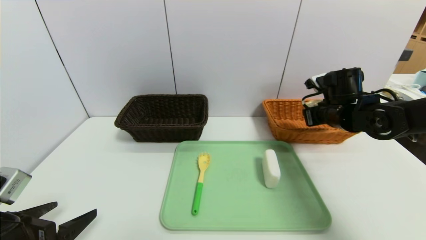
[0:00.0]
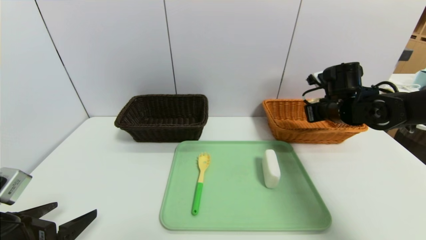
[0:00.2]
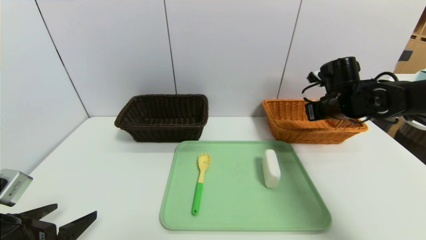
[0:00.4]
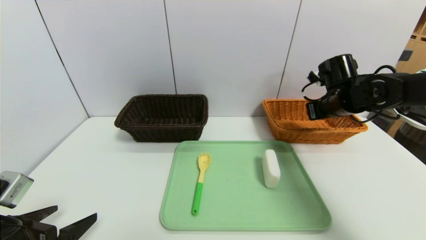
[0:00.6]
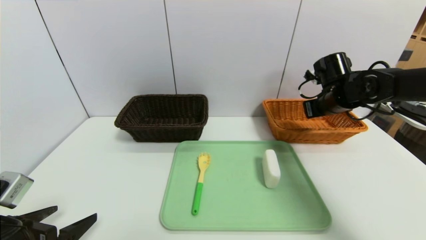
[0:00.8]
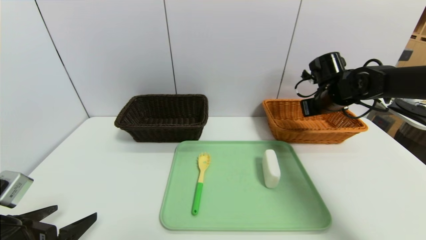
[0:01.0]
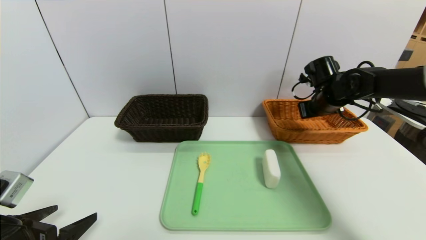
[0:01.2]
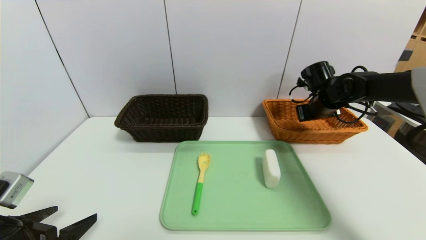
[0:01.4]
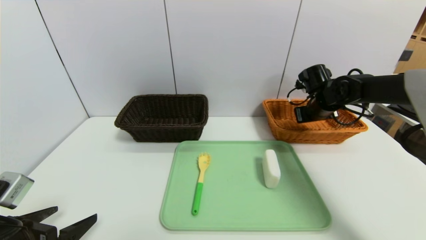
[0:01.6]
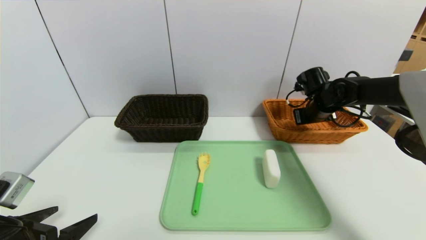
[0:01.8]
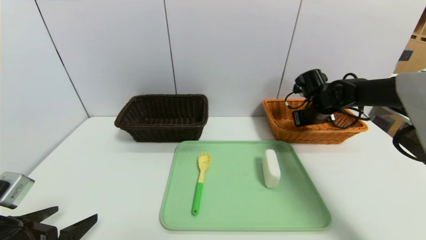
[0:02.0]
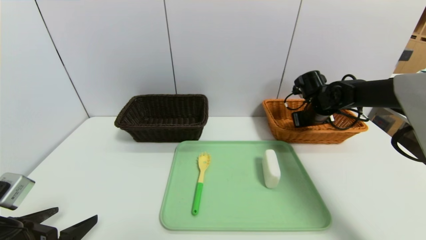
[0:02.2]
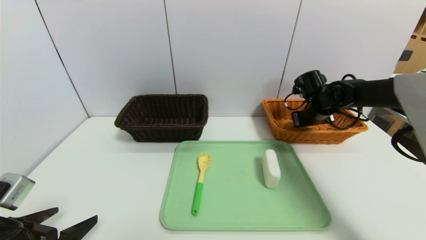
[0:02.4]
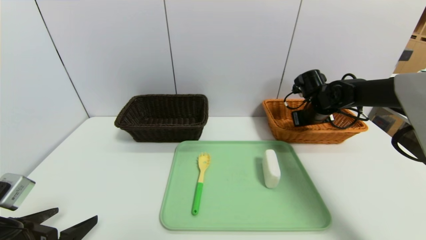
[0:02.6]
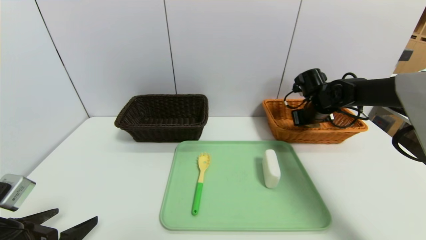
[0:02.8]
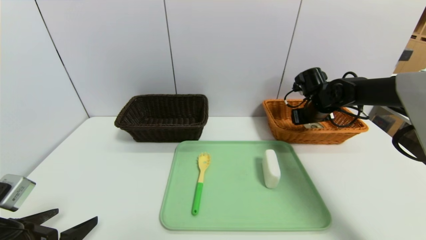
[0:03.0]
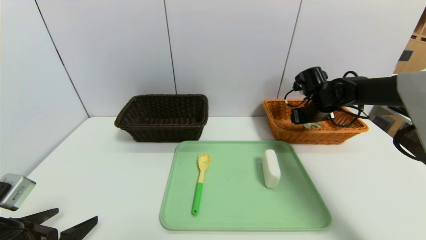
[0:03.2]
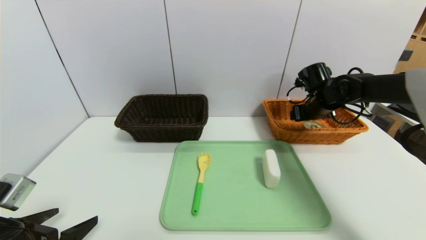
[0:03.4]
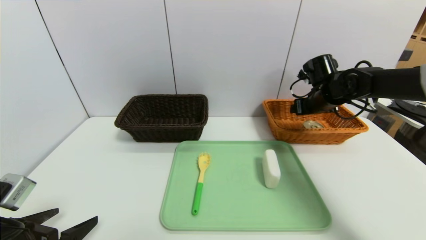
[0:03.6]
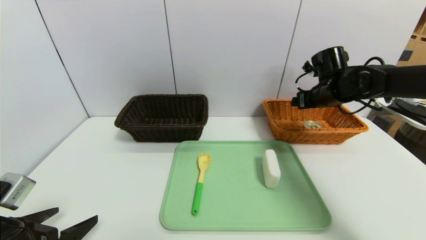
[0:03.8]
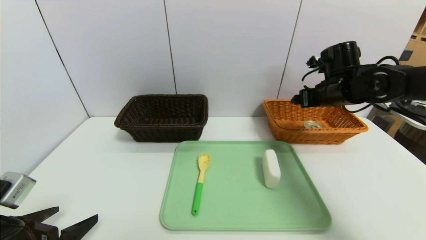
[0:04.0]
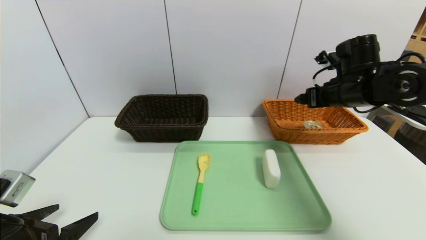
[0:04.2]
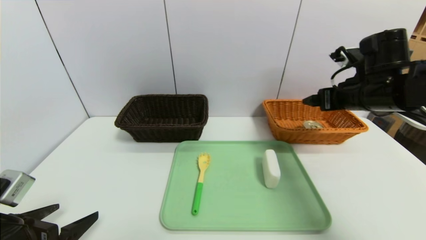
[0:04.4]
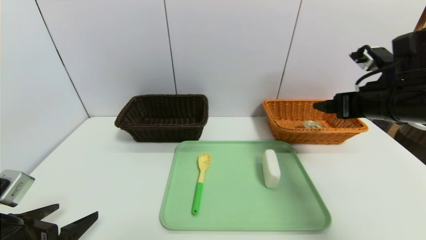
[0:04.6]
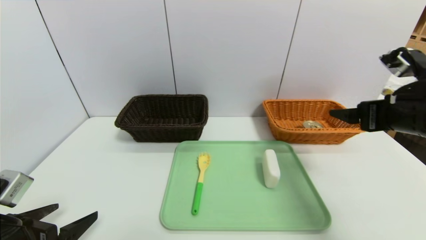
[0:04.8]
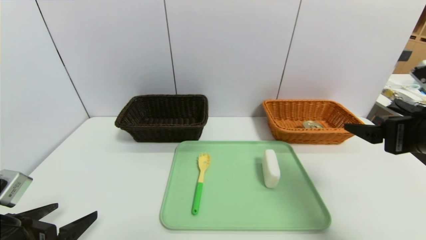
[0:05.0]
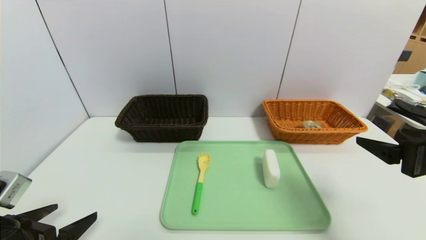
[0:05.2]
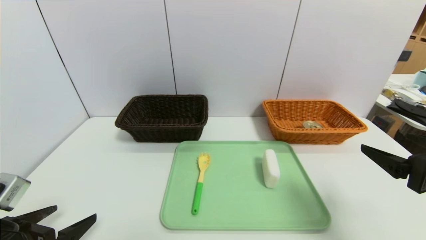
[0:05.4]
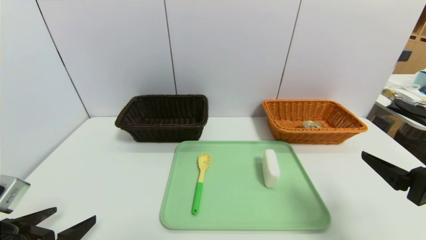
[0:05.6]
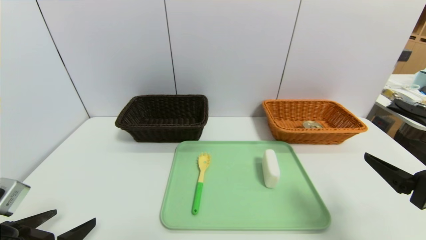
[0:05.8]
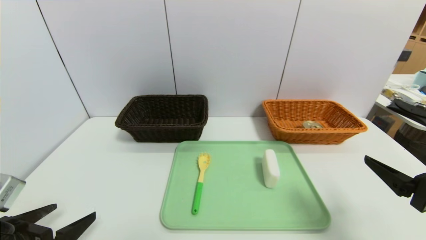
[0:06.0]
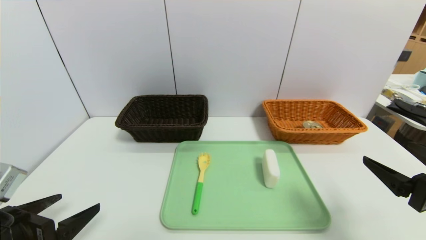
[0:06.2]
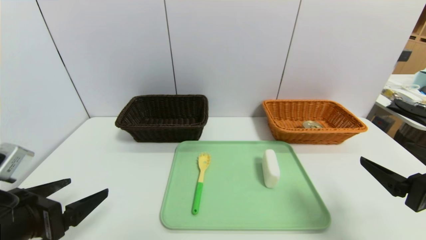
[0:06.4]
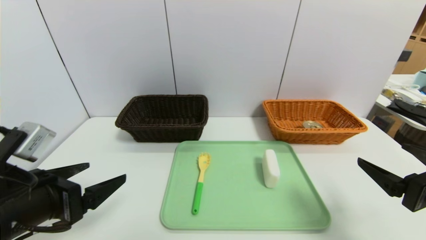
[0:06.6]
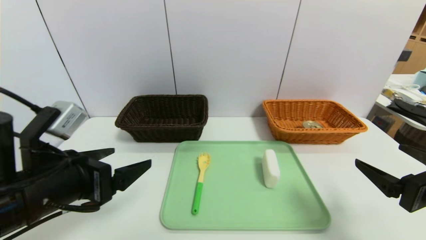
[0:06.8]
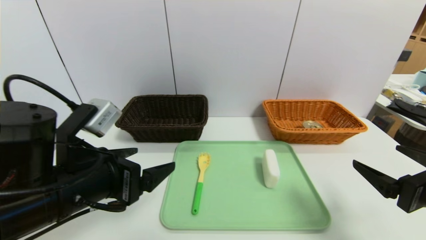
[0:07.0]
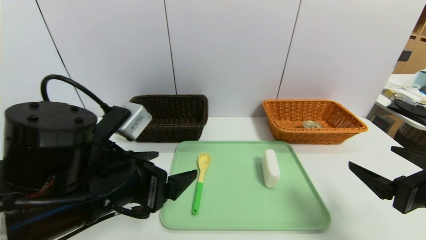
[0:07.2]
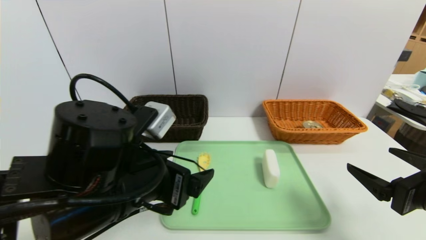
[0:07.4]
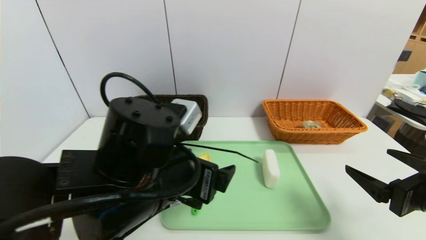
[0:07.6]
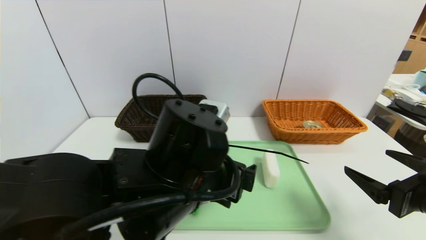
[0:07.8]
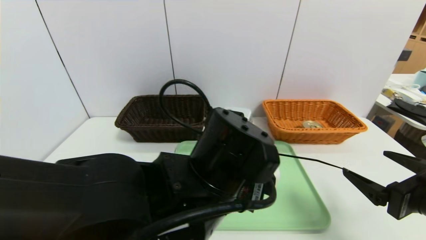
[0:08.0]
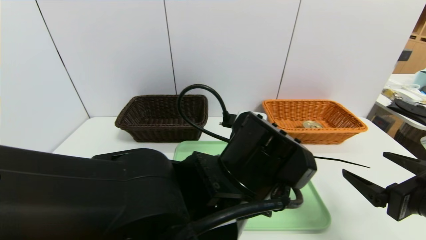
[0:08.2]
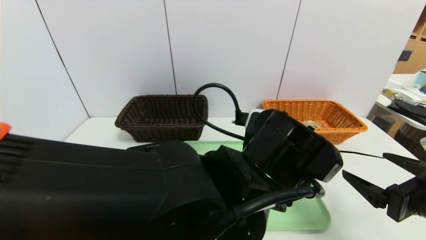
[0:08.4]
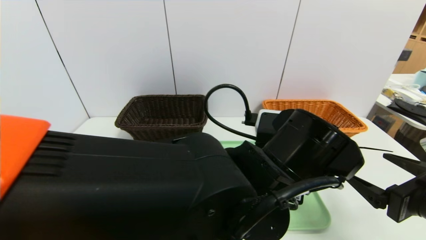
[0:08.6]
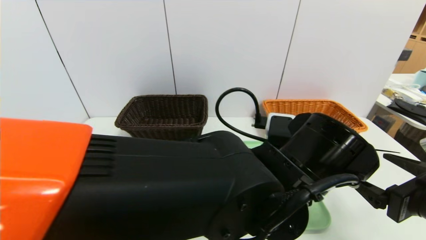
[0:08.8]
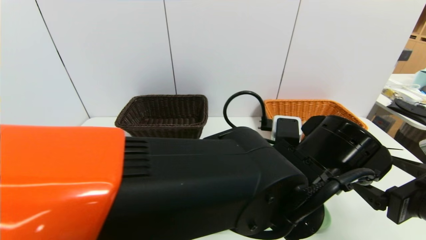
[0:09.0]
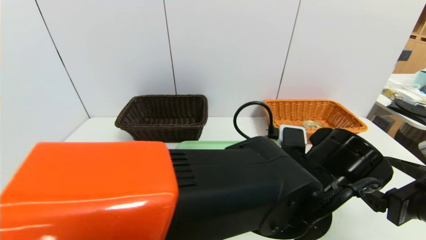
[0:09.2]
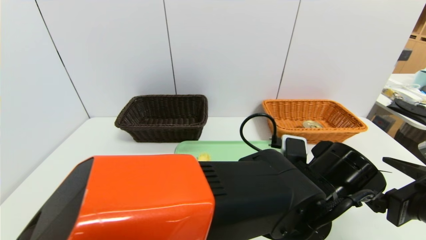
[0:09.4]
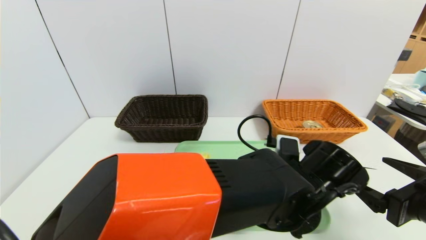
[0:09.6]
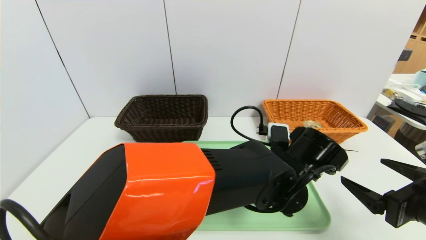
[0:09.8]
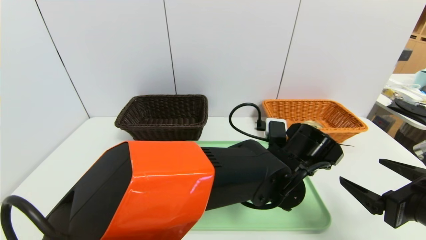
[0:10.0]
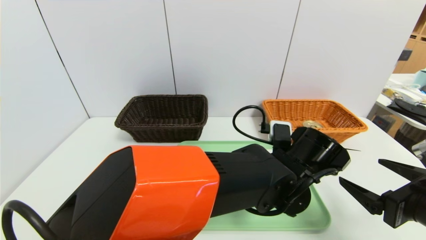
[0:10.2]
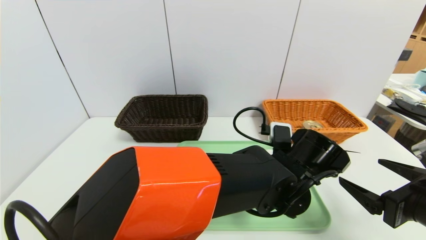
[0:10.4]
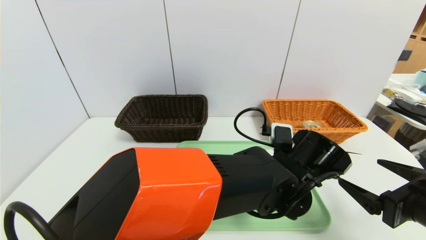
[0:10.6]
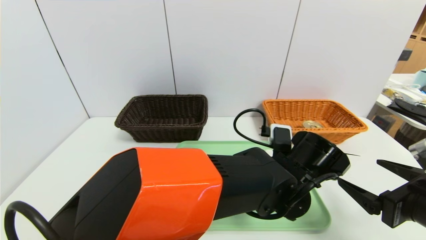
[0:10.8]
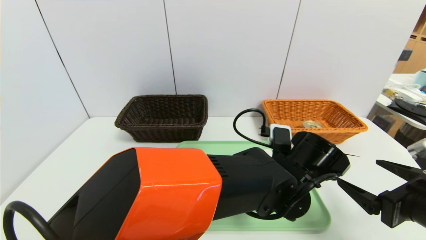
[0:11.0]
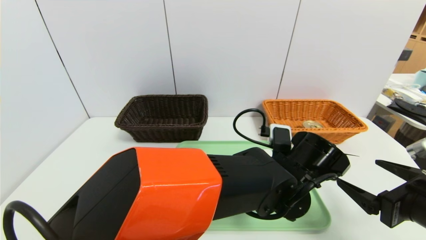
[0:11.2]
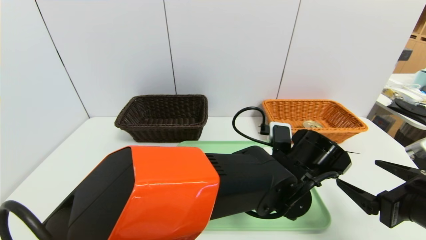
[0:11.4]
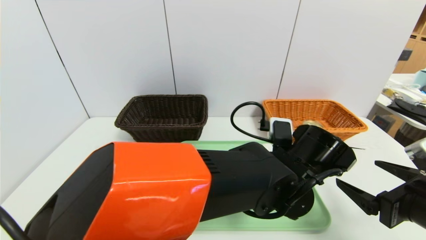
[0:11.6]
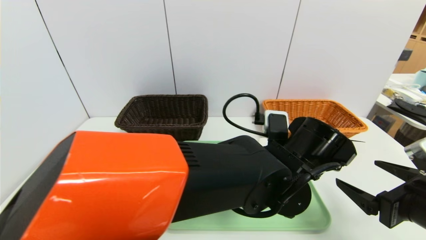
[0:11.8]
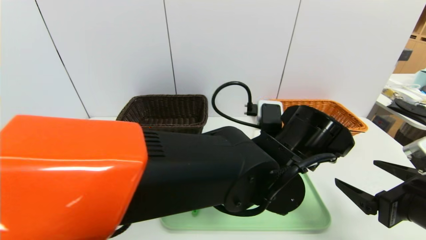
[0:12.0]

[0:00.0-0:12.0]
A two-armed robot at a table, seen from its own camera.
Task of the whole recording: place the food in the right basket with the right gripper, and place the non food items in the left basket with the left gripper.
Step, 0:00.0 to 0:03.2: Grasp the can and put it in the right basket.
0:00.0 to 0:01.6: The right gripper goes some 5 cm forward.
0:01.6 to 0:03.0: The right gripper opens its fingers.
0:03.0 to 0:04.4: The right gripper heads backward and upward, covering roughly 15 cm, and opens its fingers.
0:04.4 to 0:06.0: The right gripper goes approximately 20 cm backward.
0:06.0 to 0:07.6: The left gripper travels to the right by some 20 cm.
0:07.6 to 0:09.0: The left gripper heads to the right, covering about 15 cm.
0:09.0 to 0:10.4: The left gripper is displaced downward and forward by about 10 cm.
0:10.4 to 0:12.0: The left gripper heads upward, covering approximately 5 cm, and closes up.

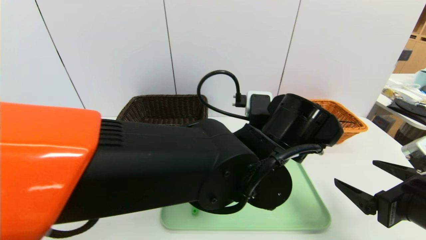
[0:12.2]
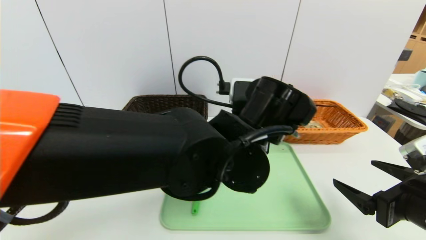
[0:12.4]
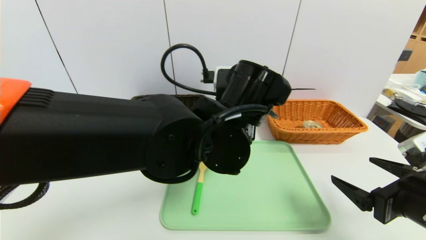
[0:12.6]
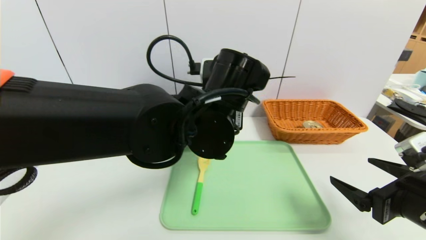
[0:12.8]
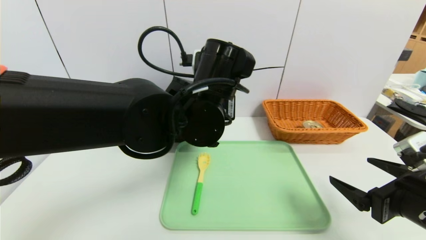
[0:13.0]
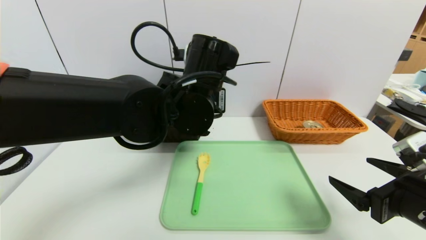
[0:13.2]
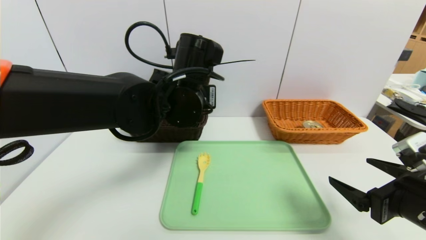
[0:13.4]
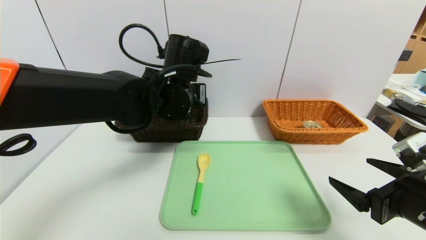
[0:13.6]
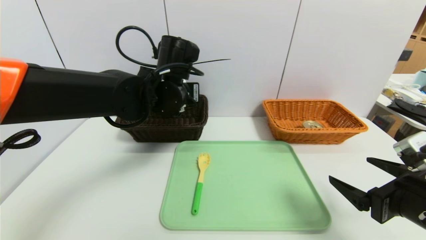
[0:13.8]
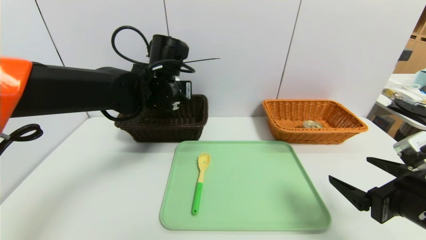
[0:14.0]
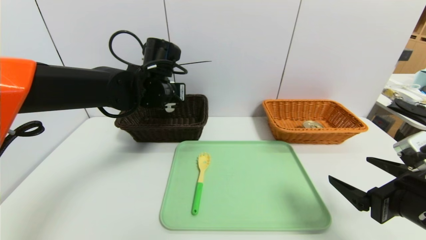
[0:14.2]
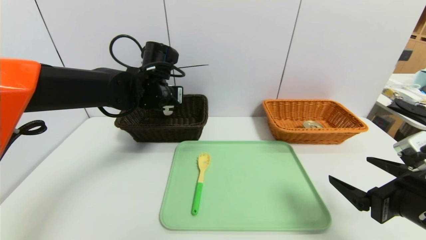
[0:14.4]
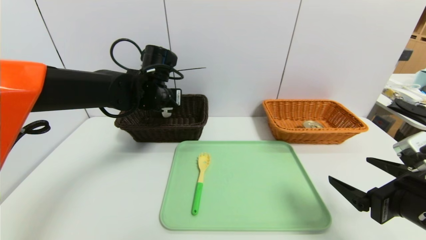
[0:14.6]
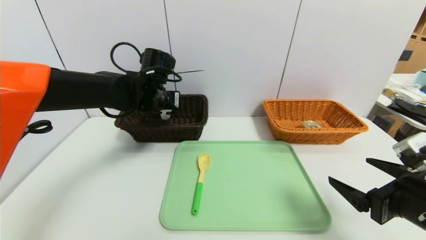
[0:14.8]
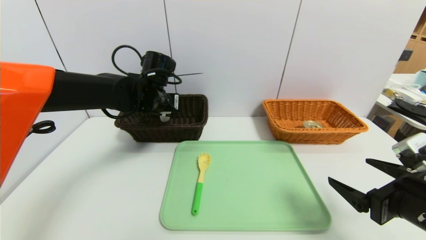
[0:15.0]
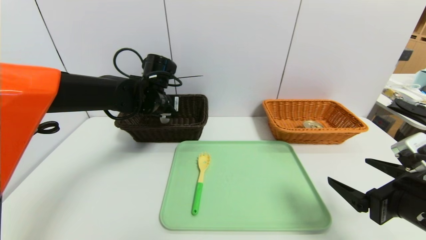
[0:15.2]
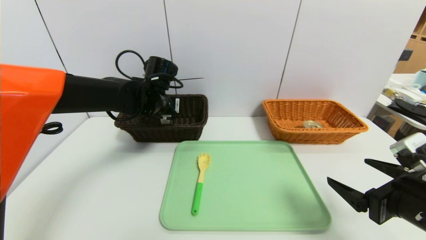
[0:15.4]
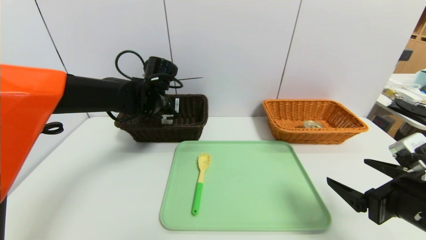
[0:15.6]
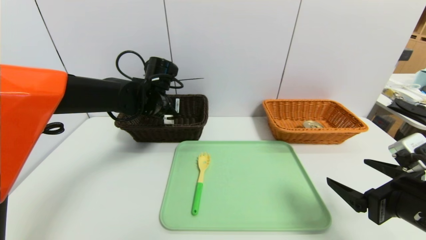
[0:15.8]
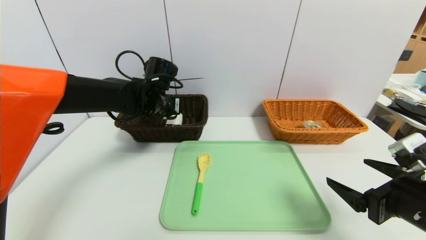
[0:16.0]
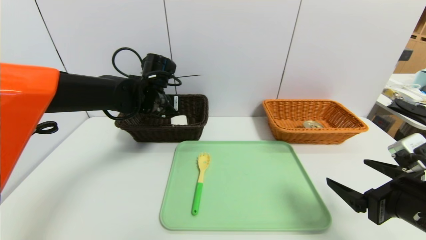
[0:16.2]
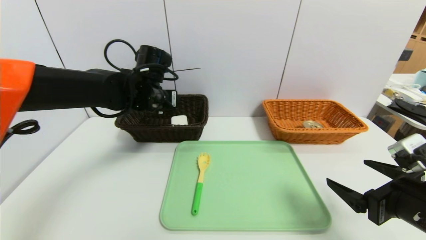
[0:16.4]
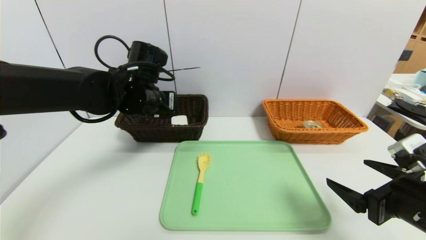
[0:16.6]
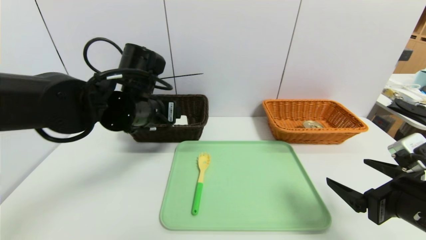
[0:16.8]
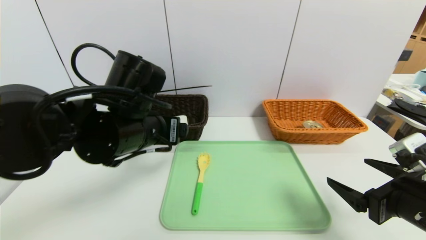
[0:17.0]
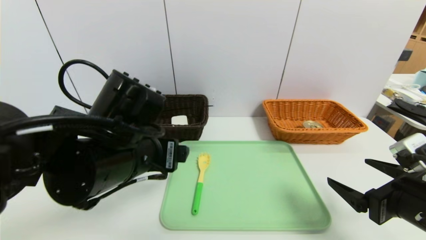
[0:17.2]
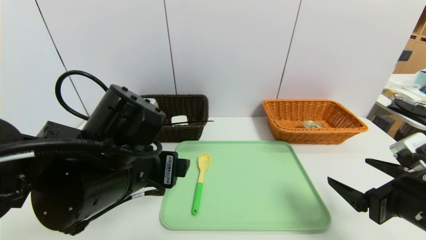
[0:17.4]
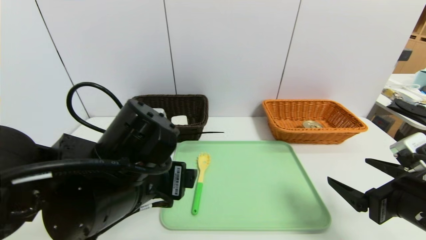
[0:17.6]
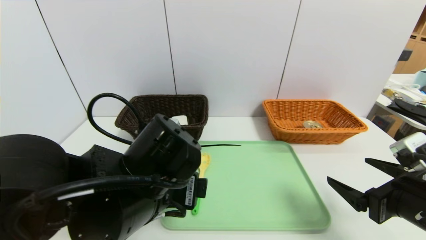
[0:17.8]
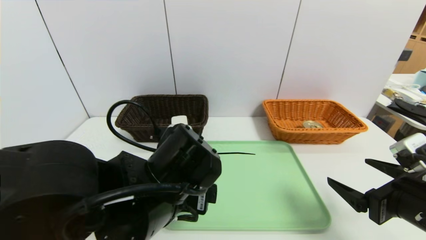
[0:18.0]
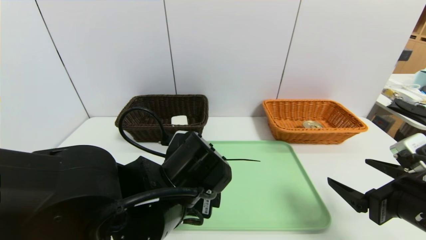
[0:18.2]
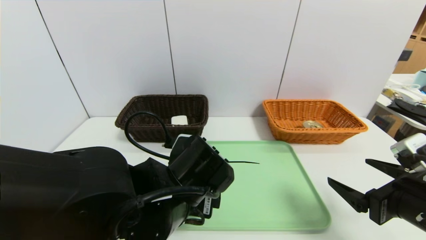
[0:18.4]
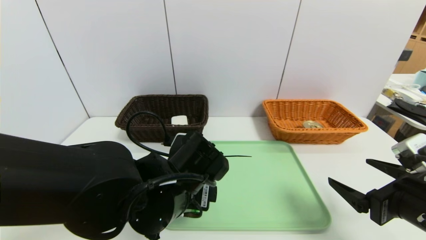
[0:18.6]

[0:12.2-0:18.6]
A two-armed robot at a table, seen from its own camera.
Task of the whole recording: place the food in the right basket with the right gripper, and place the non food items in the left basket with the left gripper.
Step, 0:12.2 to 0:16.2: Grasp the soap and put it in the left basket.
0:12.2 to 0:13.8: The left gripper heads to the left and forward, covering about 20 cm.
0:13.8 to 0:15.4: The left gripper travels forward and to the left by about 10 cm.
0:15.4 to 0:17.0: The left gripper travels backward by about 15 cm, and opens.
0:17.0 to 0:18.6: The left gripper heads downward and to the right, covering roughly 10 cm.
